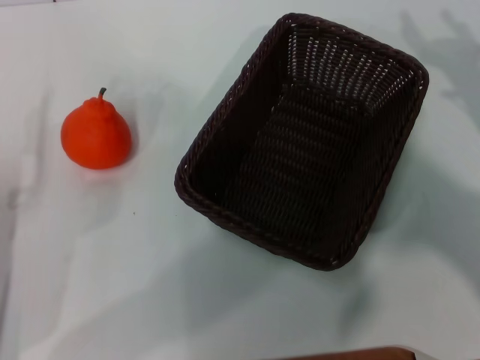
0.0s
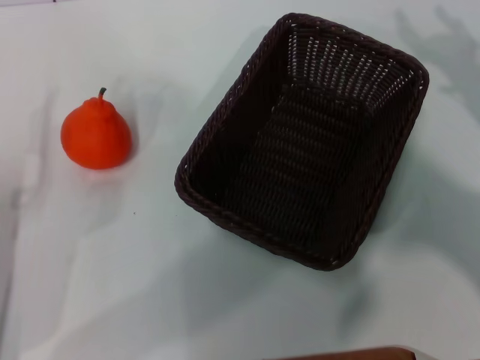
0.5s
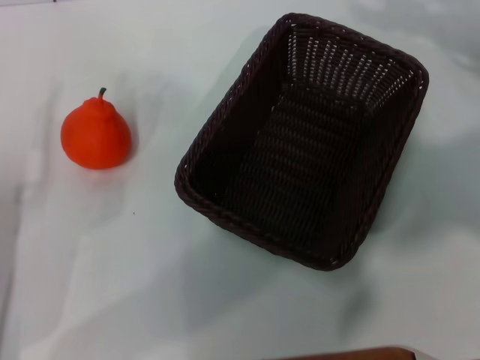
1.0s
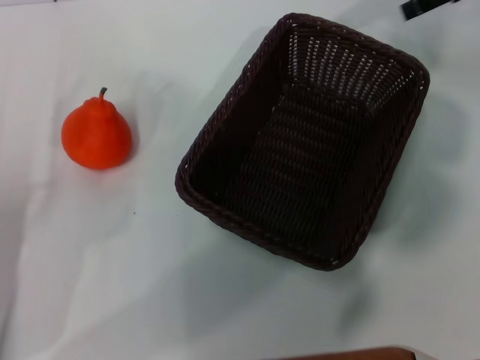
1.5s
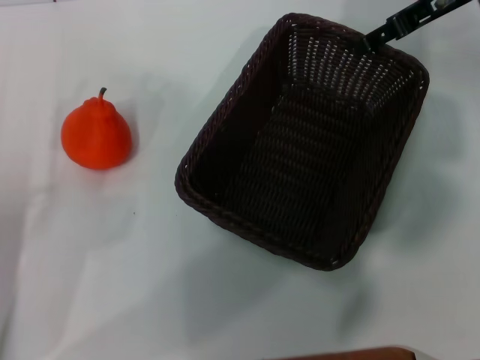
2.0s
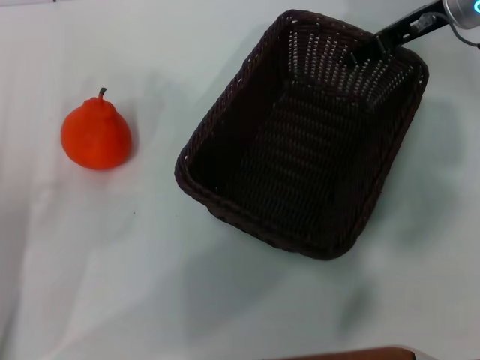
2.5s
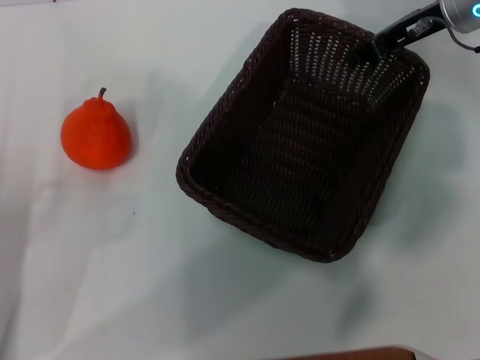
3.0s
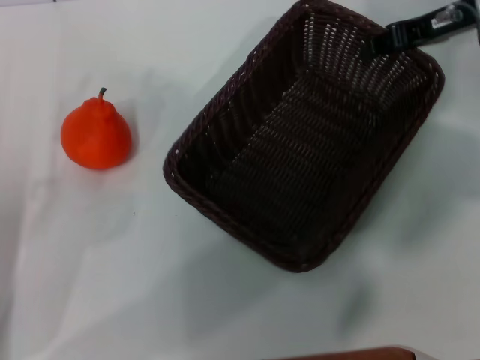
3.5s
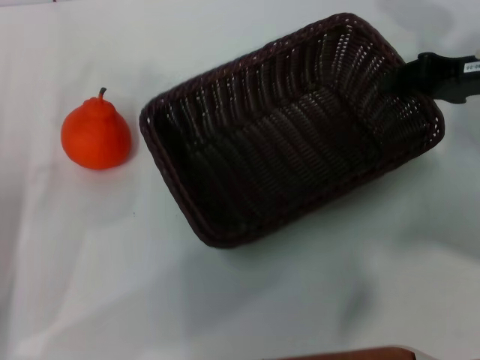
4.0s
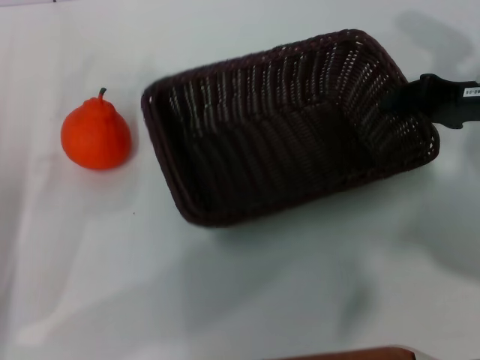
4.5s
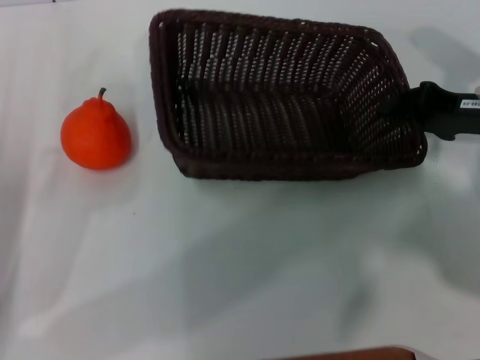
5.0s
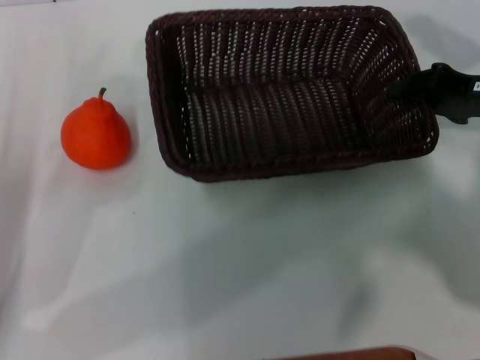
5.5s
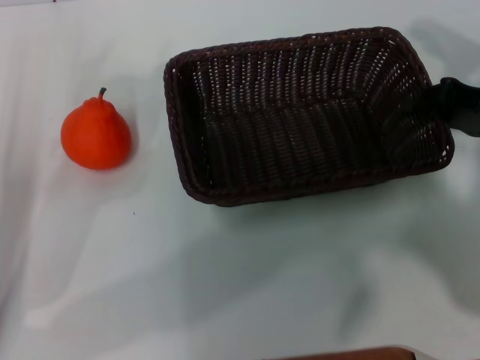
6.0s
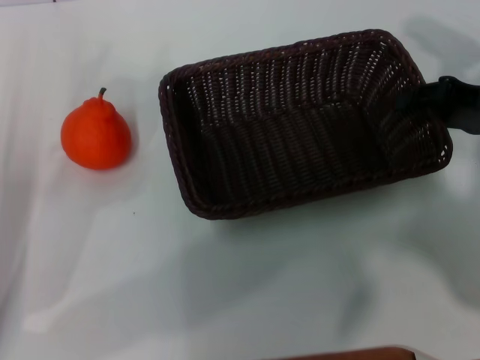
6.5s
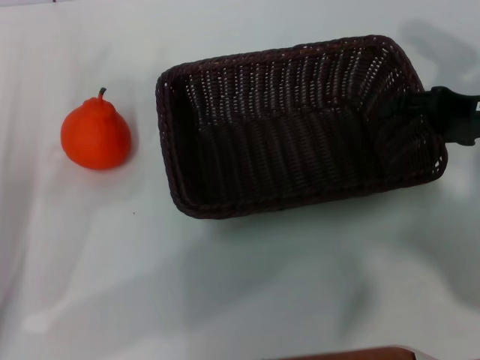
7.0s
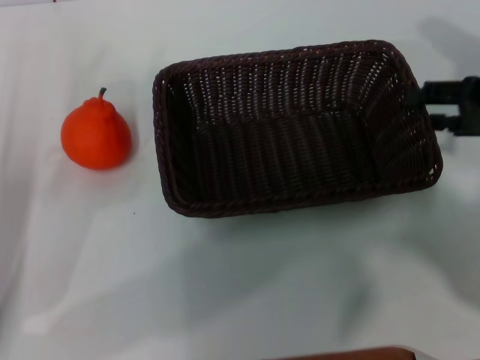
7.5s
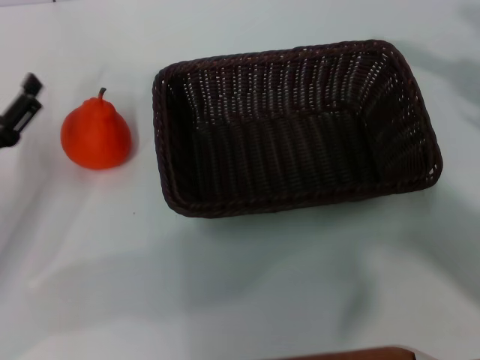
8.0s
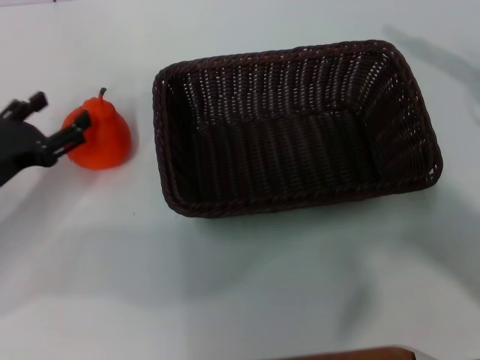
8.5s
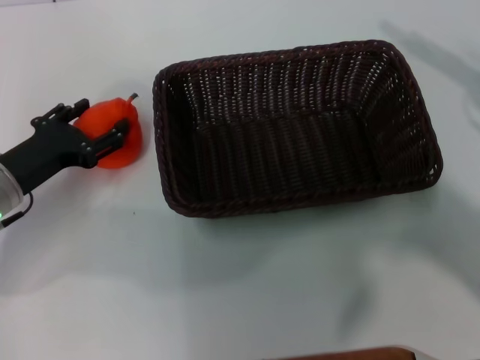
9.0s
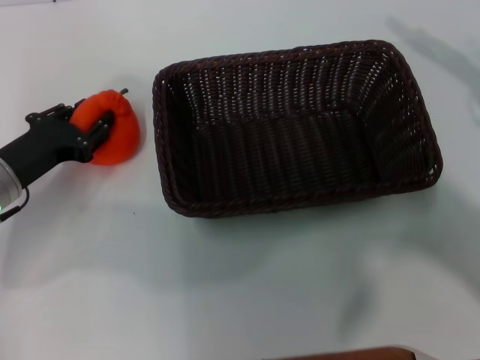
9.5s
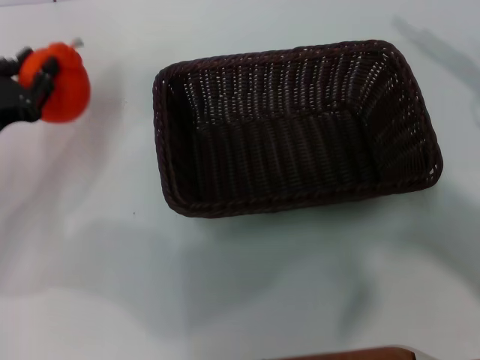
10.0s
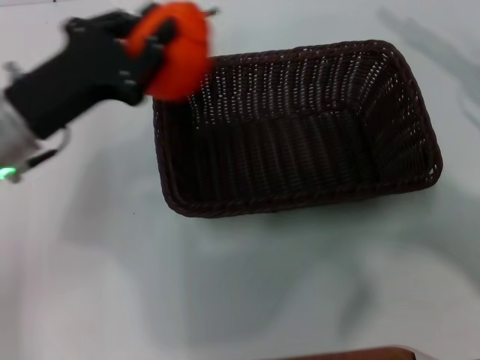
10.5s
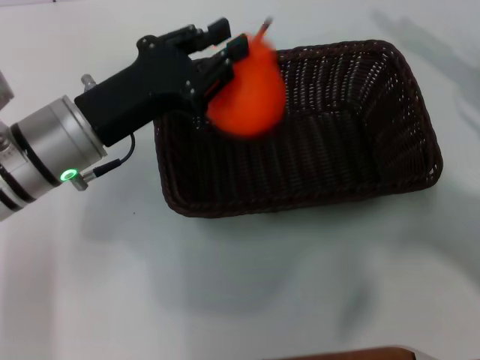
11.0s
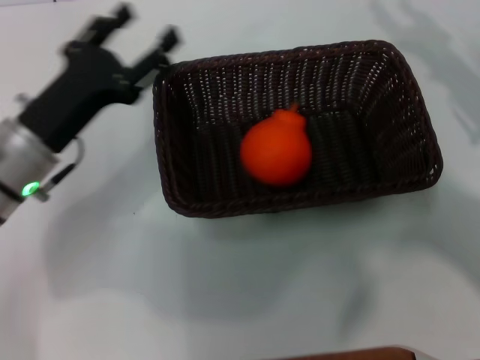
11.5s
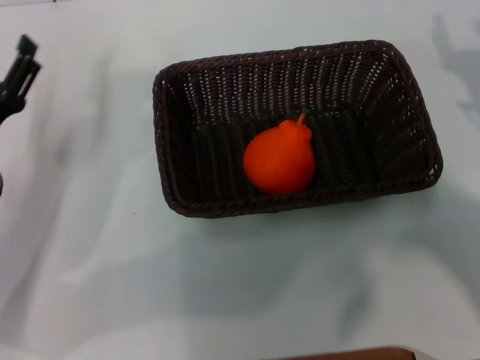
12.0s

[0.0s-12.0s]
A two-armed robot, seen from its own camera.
Task of the whole recording: the right gripper pick up the black basket and place it horizontally in the middle of the table, the left gripper pick up the orange and place it into the black basket.
Step, 0.0s to 3.0s: Pick up the dark basket with the right gripper.
Step, 3.5s to 7.0s: Place the light basket in the center of view with the right gripper.
Step, 7.5s to 9.5s: Pick up the orange with the left gripper.
Step, 10.0s to 11.0s: Place the orange into the light basket with the left gripper.
0.0s to 2.0s: The right gripper travels forward, upward and to the left by about 25 cm.
2.0s to 4.0s: The right gripper shifts roughly 10 cm backward and downward, and closes its fingers.
4.0s to 6.0s: The grippers make only small movements.
6.0s to 8.0s: The right gripper heads to the right and upward, covering about 10 cm, and opens up.
8.0s to 10.0s: The left gripper changes place by about 5 cm, and closes up.
10.0s to 12.0s: The right gripper goes some 5 cm downward, while the left gripper goes to the right and returns, some 15 cm each way, and opens.

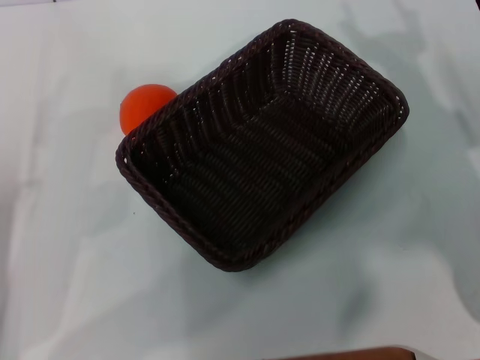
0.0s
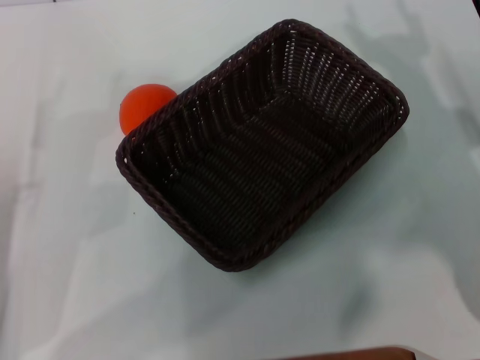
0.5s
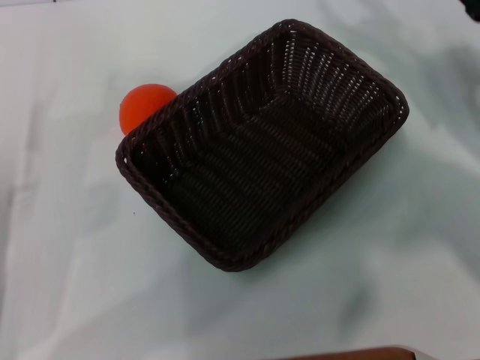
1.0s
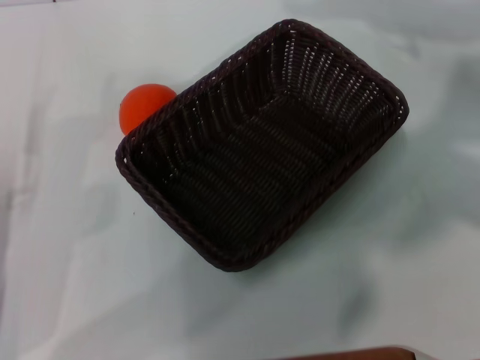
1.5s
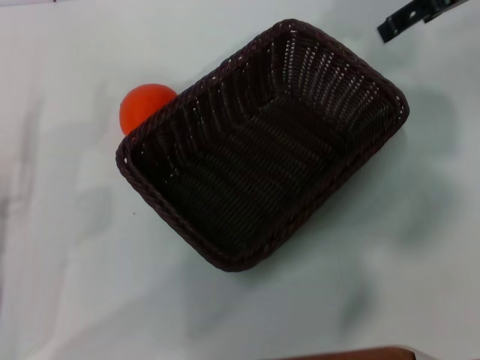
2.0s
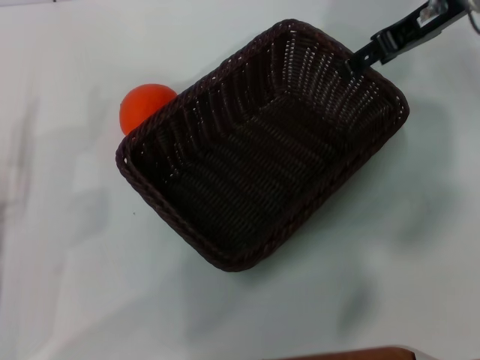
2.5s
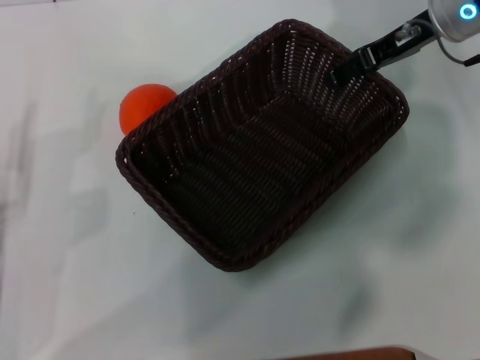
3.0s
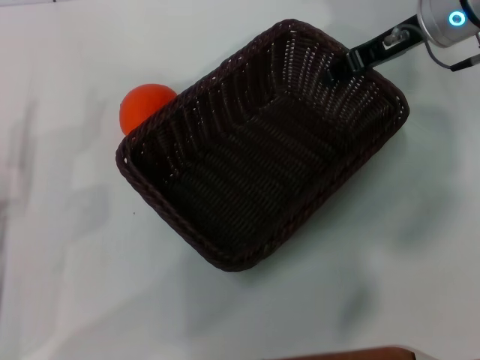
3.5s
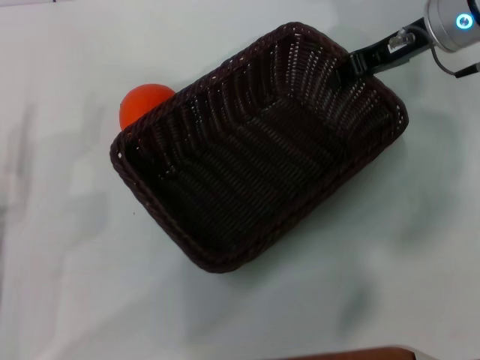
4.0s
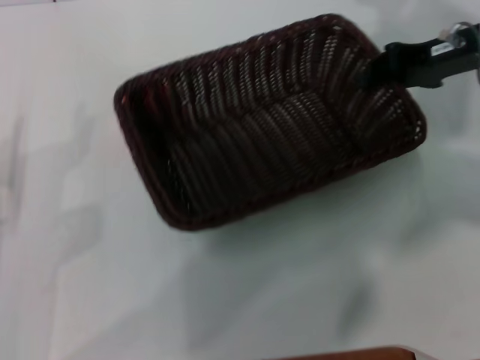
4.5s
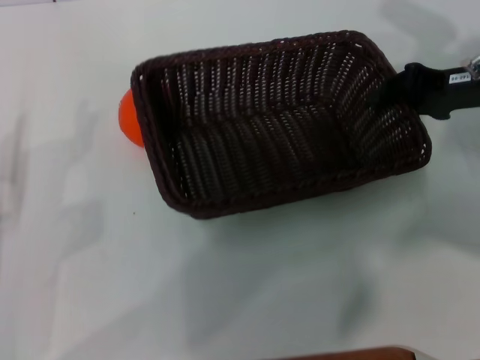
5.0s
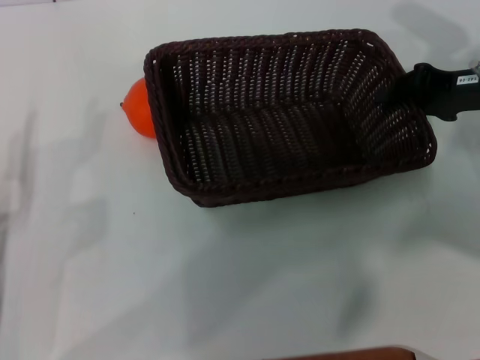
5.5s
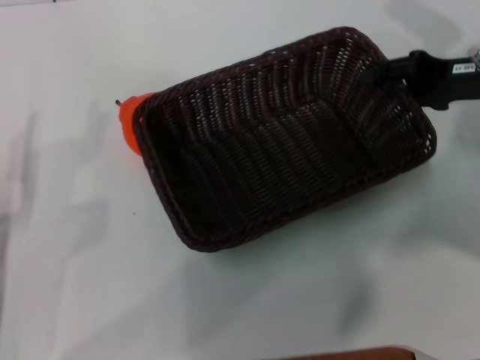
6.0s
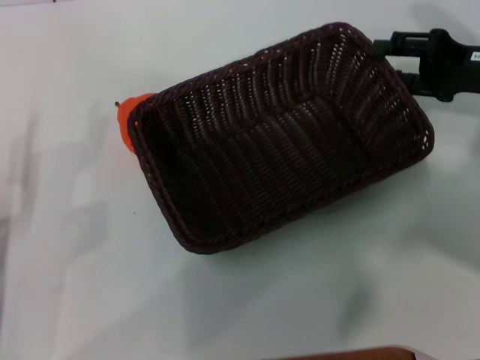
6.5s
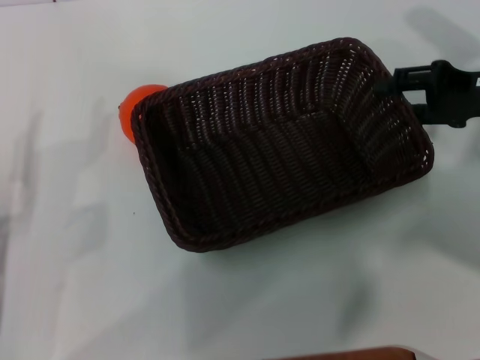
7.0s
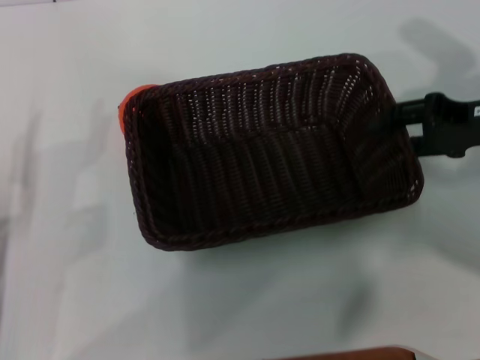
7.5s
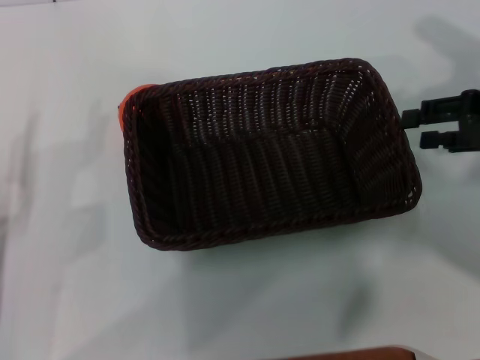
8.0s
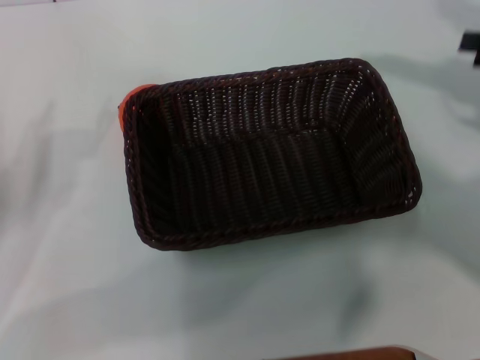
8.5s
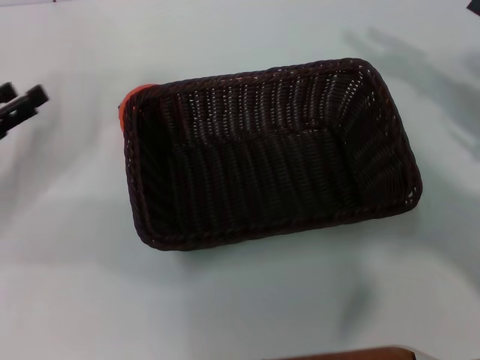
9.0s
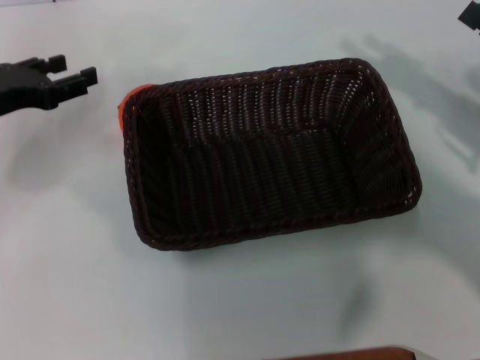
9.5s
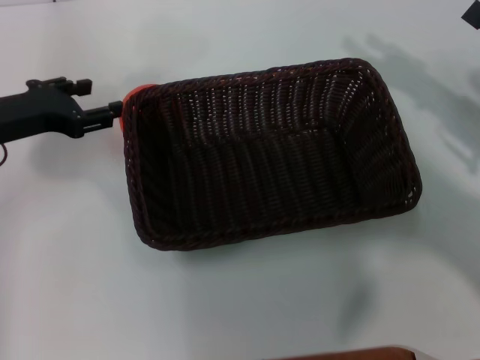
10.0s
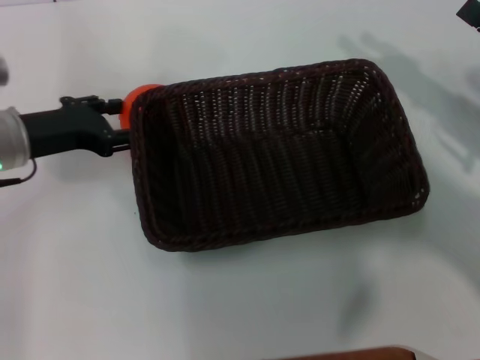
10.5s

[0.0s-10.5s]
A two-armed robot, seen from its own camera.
Task of the whole recording: the right gripper pick up the black basket and place it horizontally in the middle of the table, the left gripper pick up the orange and place it into the black basket.
Step, 0.0s to 4.5s: Pick up the dark basket with the right gripper.
Step, 5.0s to 8.0s: Place the dark basket in the center of view with the right gripper.
0.0s to 2.0s: The right gripper heads upward and forward, covering about 25 cm.
2.0s to 4.0s: The right gripper goes some 10 cm downward, and closes.
4.0s to 6.5s: The right gripper travels to the right and backward by some 10 cm, and opens.
6.5s to 8.5s: The left gripper changes place by approximately 5 cm; the right gripper heads to the right and upward, covering approximately 10 cm.
8.5s to 10.5s: The left gripper shifts roughly 15 cm forward and to the right; the right gripper goes roughly 10 cm downward.

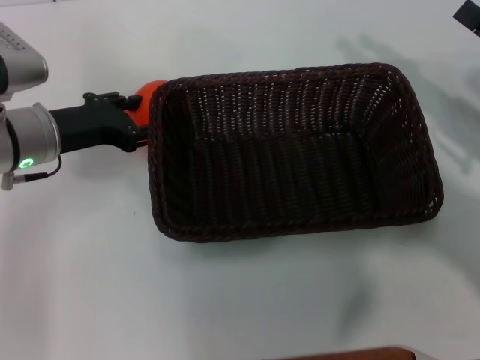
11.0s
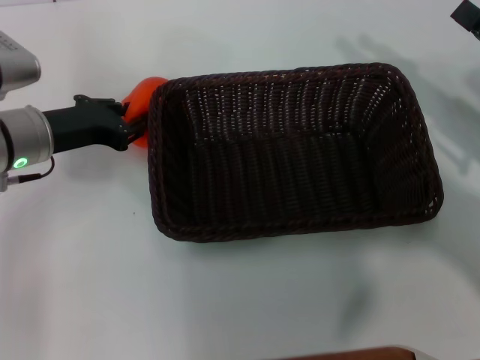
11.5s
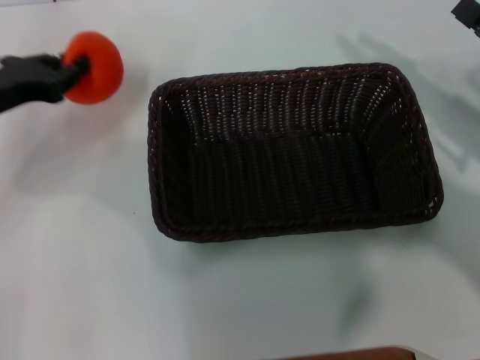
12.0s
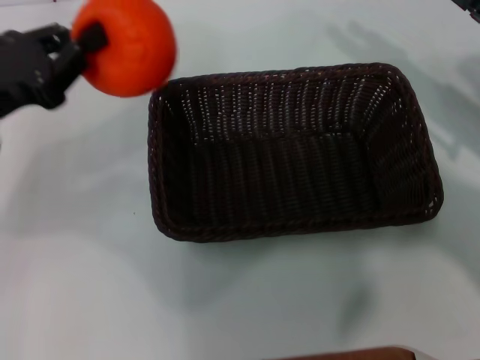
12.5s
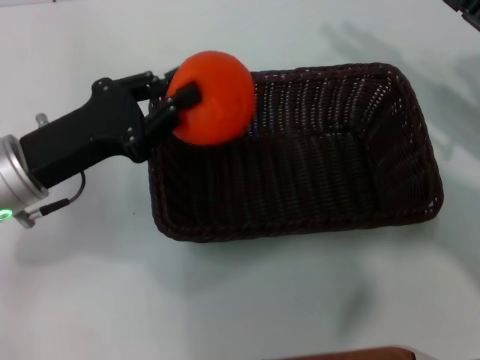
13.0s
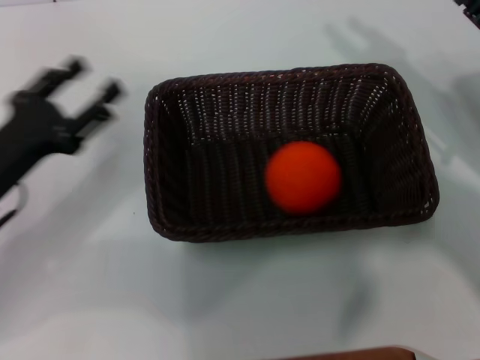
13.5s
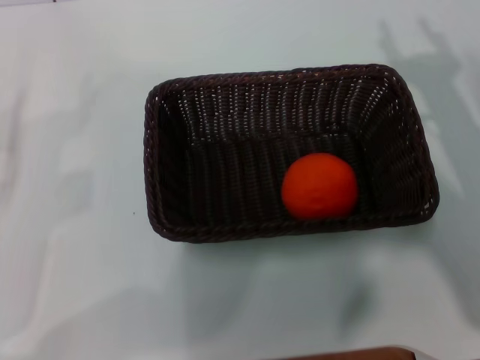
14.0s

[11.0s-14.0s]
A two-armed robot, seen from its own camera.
Task of the whole recording: the right gripper pick up the black basket and place it horizontally in the middle of the table, the left gripper pick up the orange and place it into the black basket.
11.0s to 12.5s: The left gripper moves upward, backward and to the left, about 10 cm, and closes its fingers.
12.5s to 14.0s: The right gripper ends up approximately 5 cm from where it was. Meanwhile the left gripper shifts roughly 15 cm downward, backward and to the left, and opens up.
